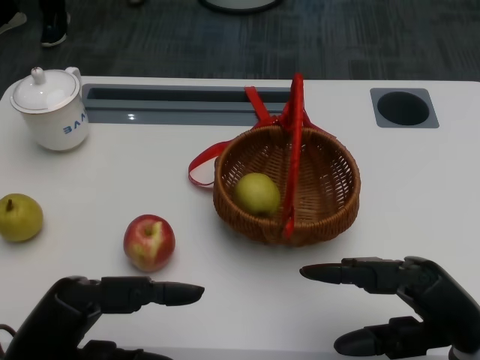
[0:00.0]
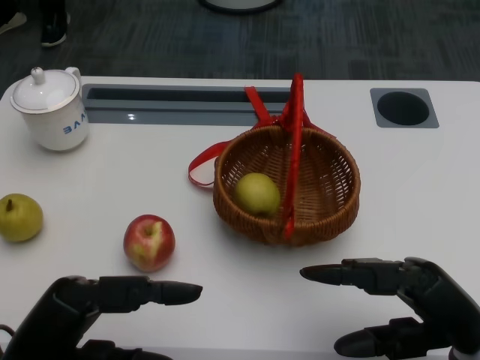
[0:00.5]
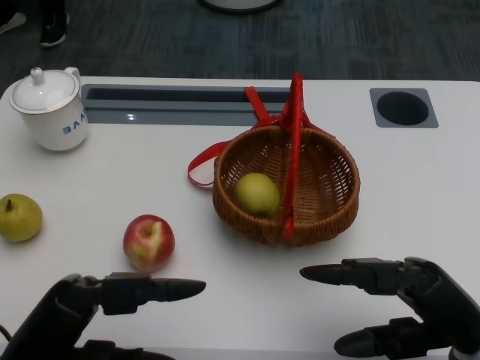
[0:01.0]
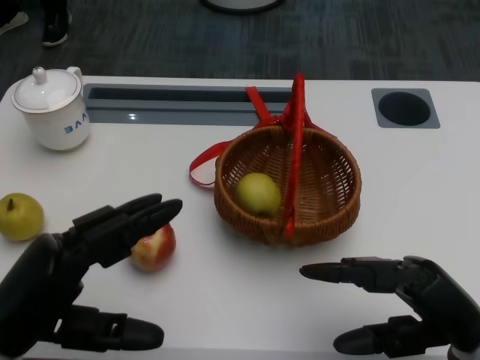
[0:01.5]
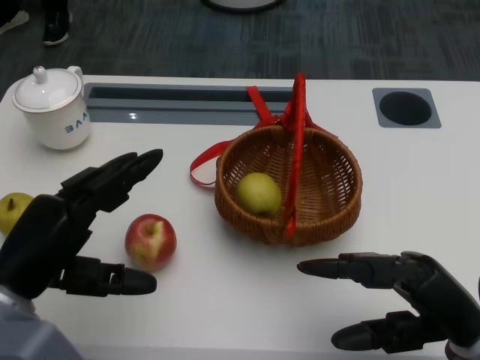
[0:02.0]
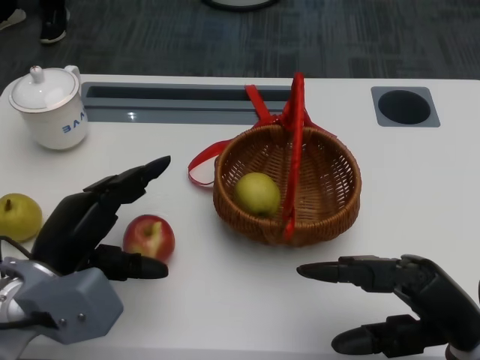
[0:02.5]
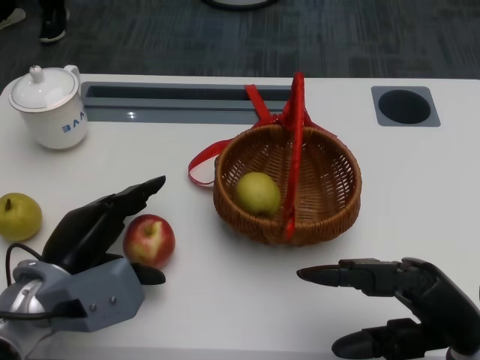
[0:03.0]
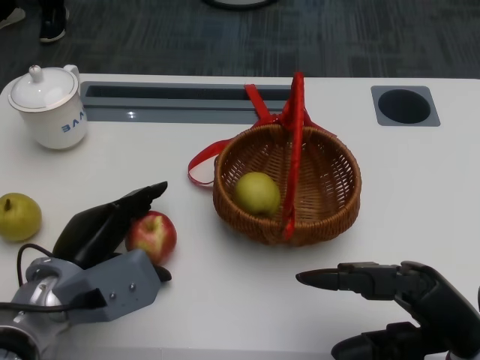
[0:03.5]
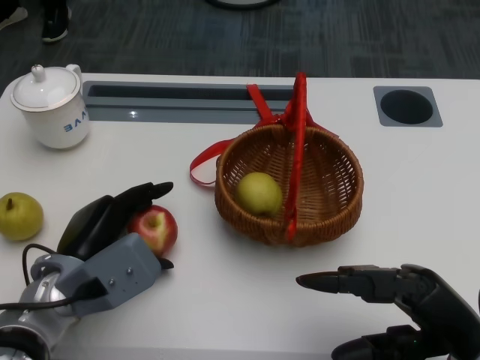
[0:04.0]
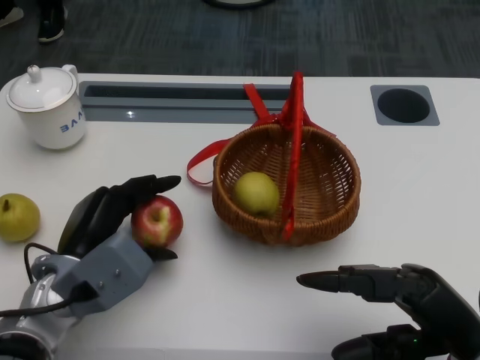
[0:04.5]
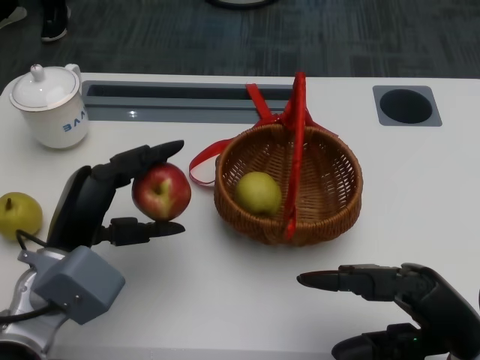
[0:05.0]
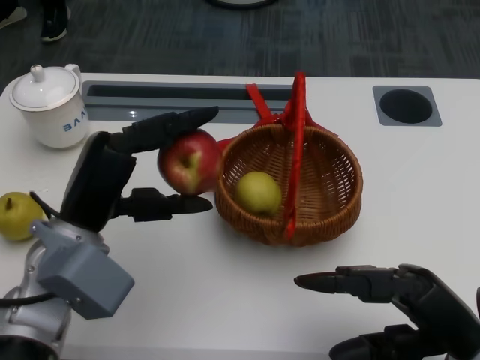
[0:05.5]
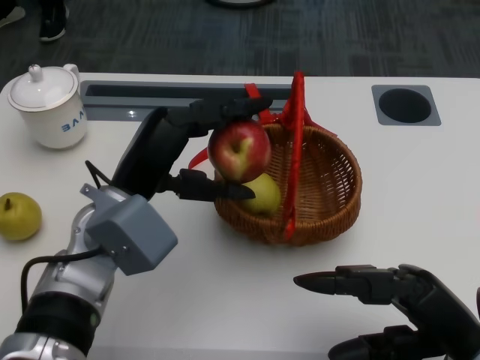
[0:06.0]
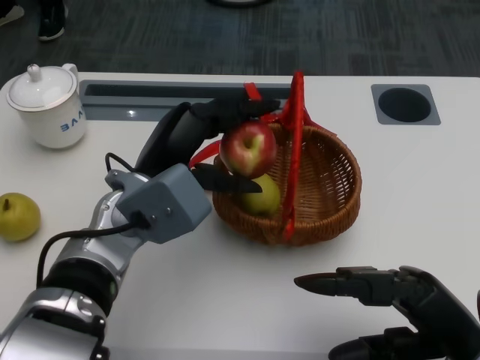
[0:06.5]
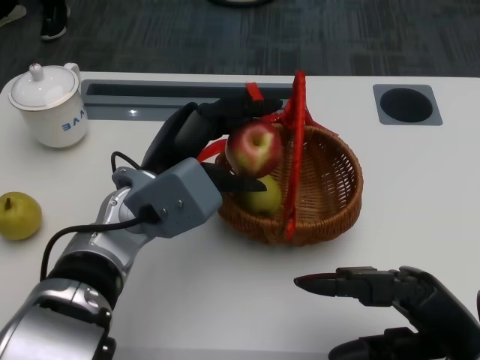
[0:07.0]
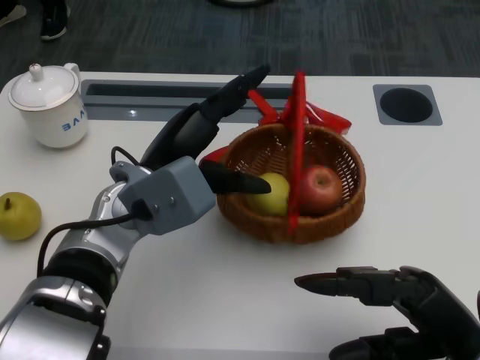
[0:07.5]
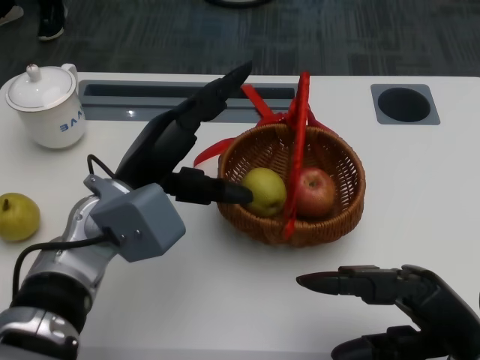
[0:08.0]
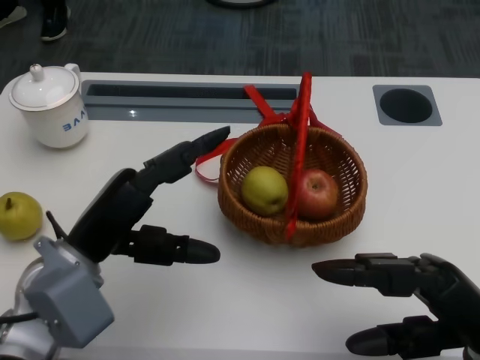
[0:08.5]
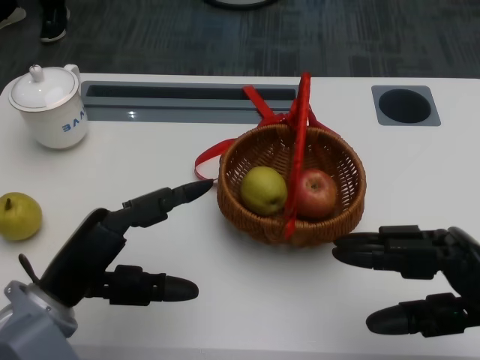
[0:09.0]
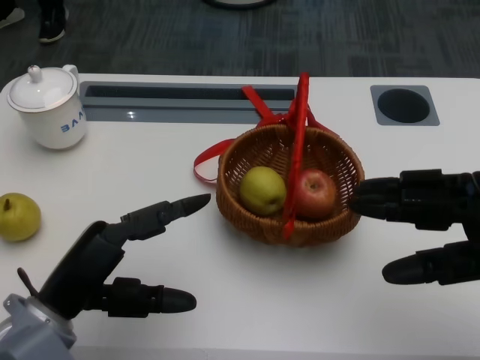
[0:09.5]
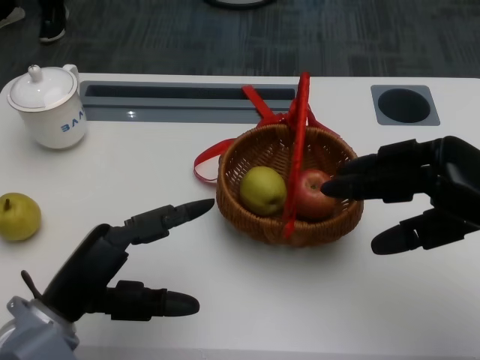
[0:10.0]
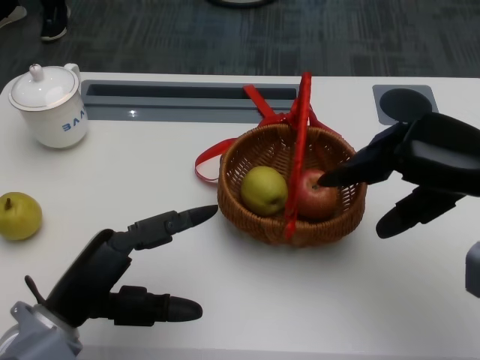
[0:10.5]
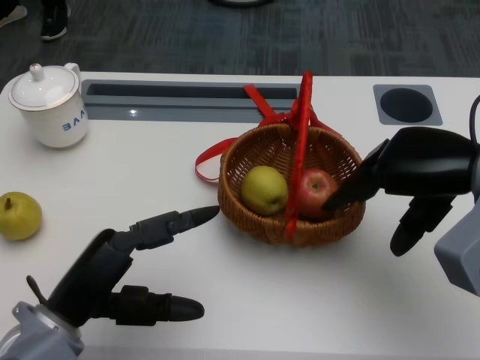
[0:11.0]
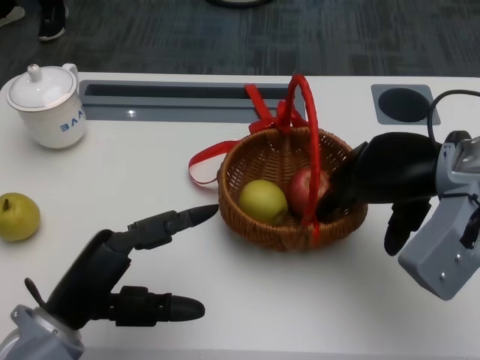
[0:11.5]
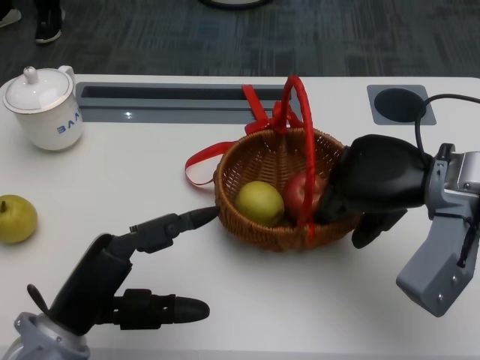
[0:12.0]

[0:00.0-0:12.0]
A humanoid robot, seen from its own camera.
Step, 0:01.0 to 0:03.0: Grasp the apple with the left gripper.
Step, 0:03.5 to 0:06.0: Place the apple into the basket with the left gripper.
Step, 0:06.5 to 0:09.5: Grasp the basket with the right gripper.
0:02.0 to 0:04.0: The left hand travels downward, forward and to the right by approximately 10 cm.
0:04.0 to 0:06.0: The left hand heads upward, covering roughly 10 cm.
0:06.0 to 0:08.0: There are only small adjustments of the hands.
0:08.0 to 0:10.0: The left hand goes approximately 10 cm backward and to the left, while the right hand heads upward and forward, covering roughly 10 cm.
0:10.0 to 0:12.0: The right hand travels to the left and forward by approximately 10 cm.

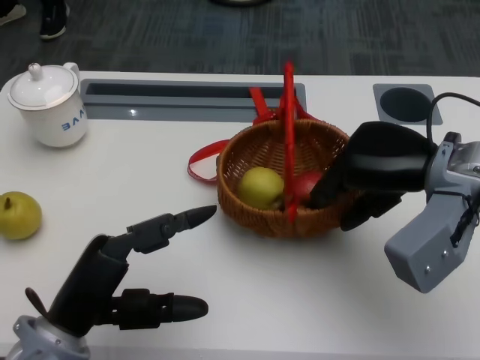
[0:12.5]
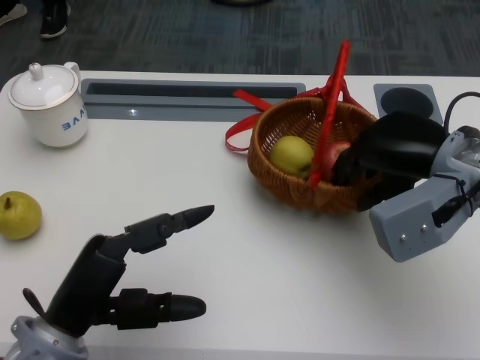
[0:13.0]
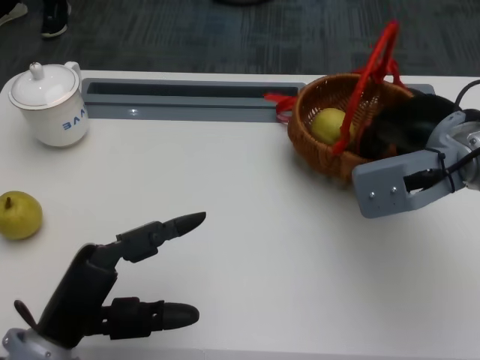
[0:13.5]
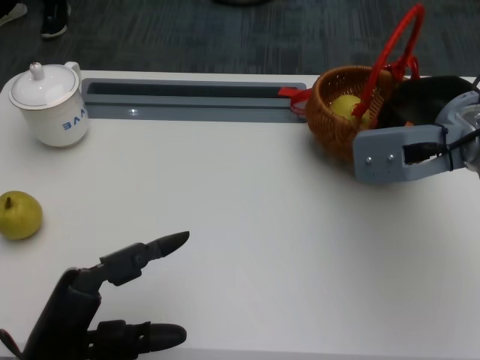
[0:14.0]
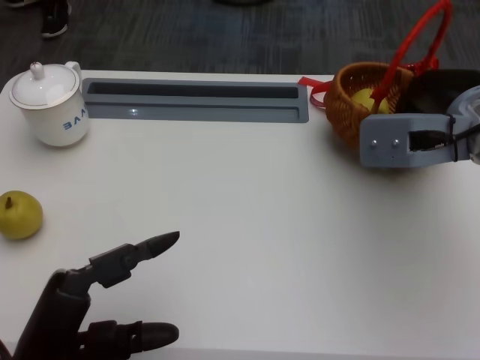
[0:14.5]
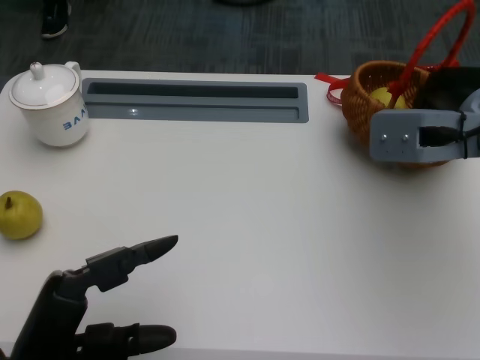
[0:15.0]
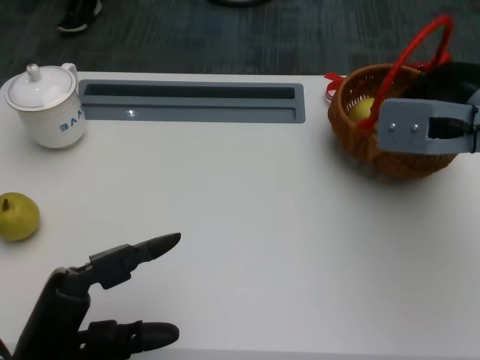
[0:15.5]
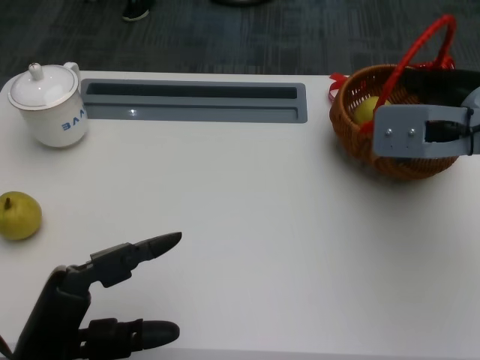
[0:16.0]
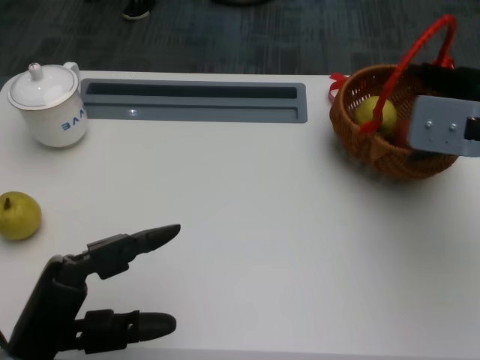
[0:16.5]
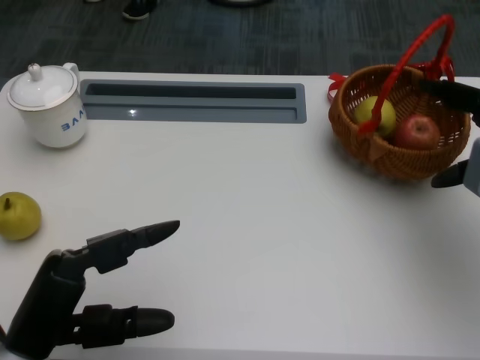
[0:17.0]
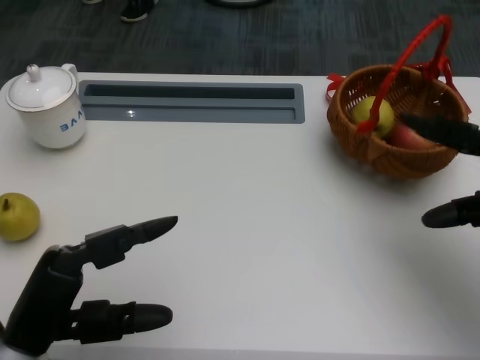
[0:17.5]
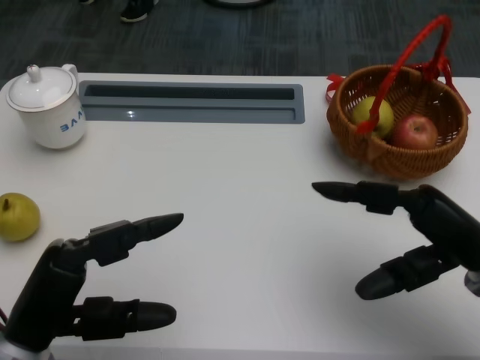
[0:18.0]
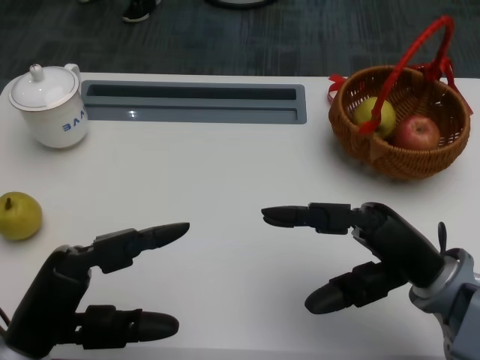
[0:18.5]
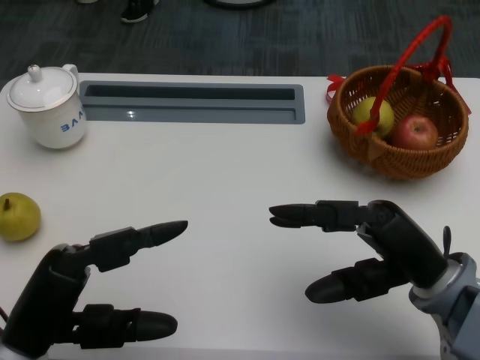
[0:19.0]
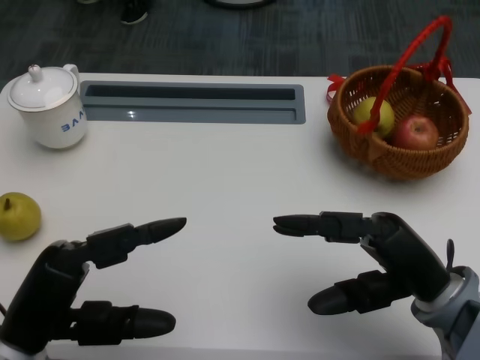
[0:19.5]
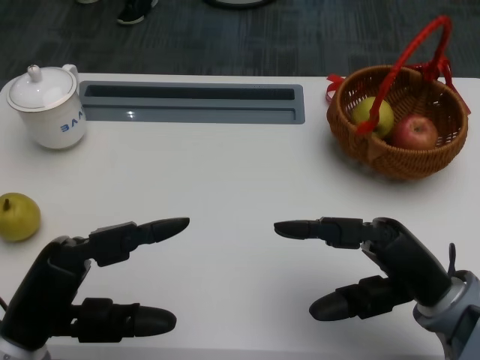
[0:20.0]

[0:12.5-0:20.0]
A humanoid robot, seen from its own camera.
0:14.5 to 0:16.5: The hands make only small movements.
0:16.5 to 0:18.0: The right hand travels backward and downward by some 15 cm.
0:18.0 to 0:20.0: The right hand shifts by approximately 5 cm.

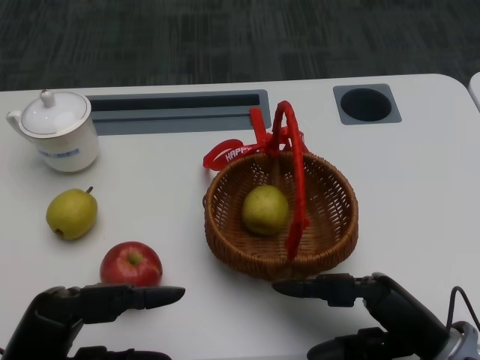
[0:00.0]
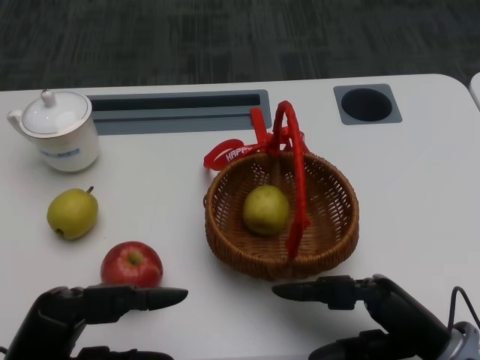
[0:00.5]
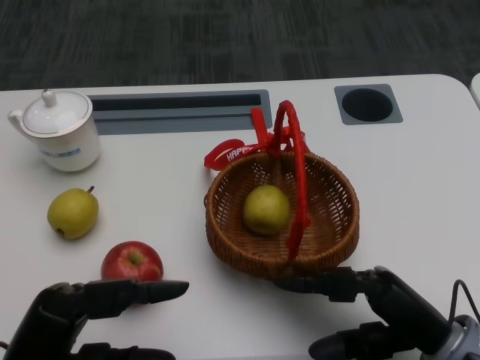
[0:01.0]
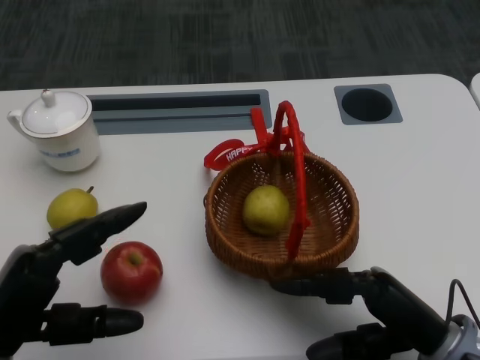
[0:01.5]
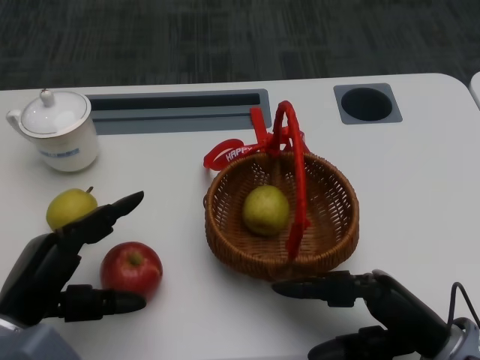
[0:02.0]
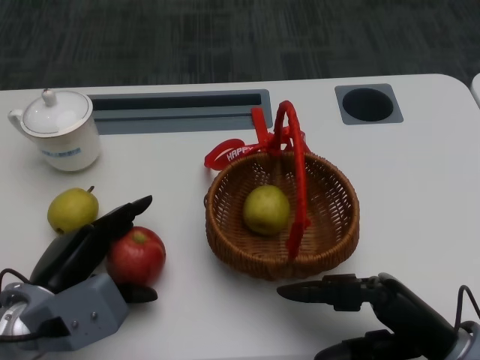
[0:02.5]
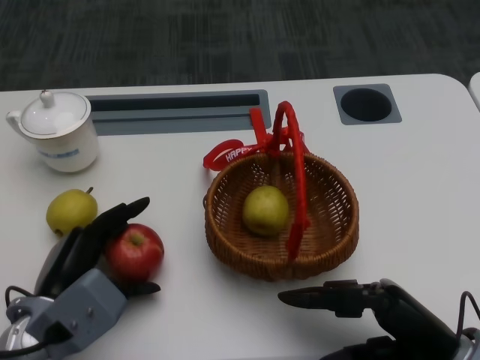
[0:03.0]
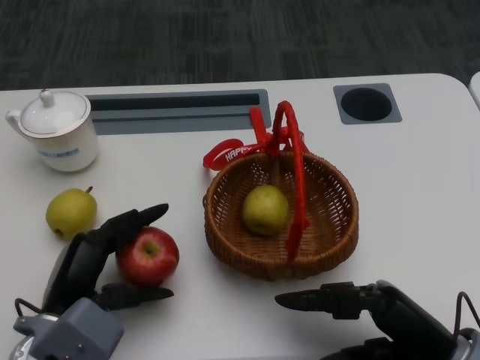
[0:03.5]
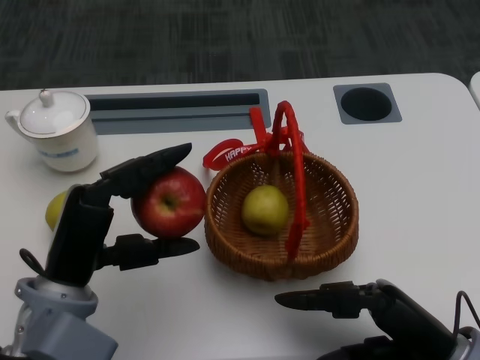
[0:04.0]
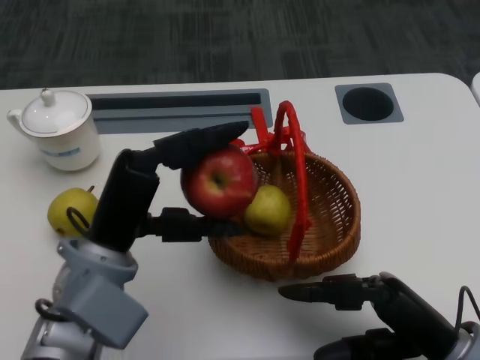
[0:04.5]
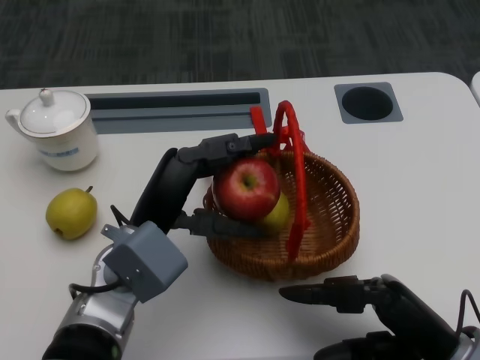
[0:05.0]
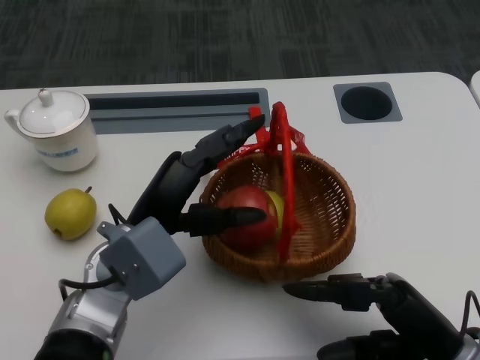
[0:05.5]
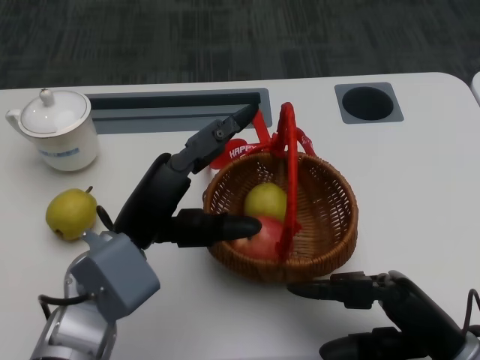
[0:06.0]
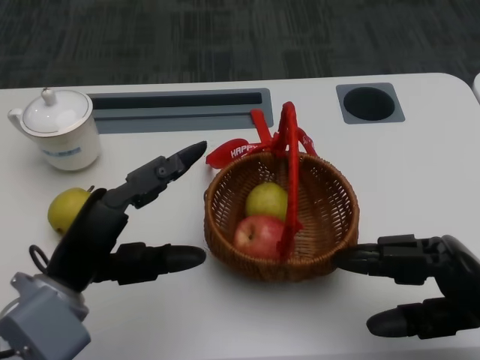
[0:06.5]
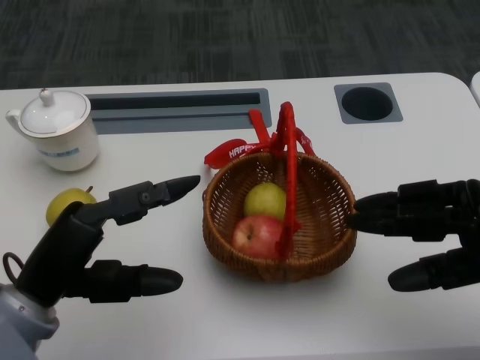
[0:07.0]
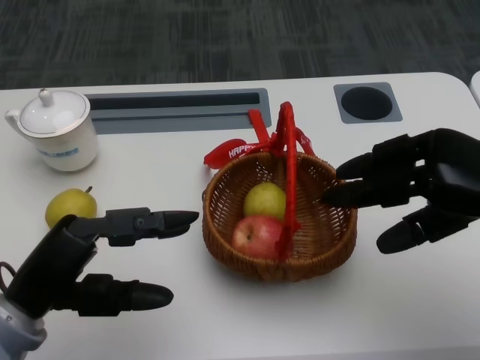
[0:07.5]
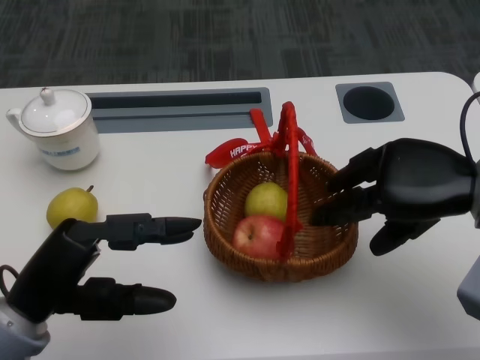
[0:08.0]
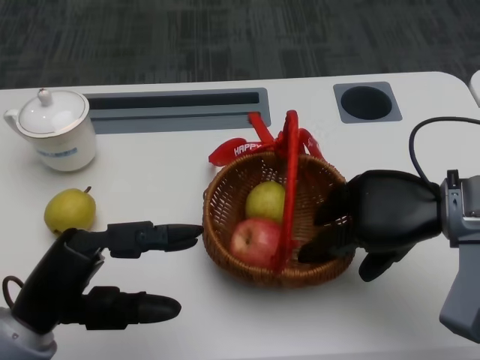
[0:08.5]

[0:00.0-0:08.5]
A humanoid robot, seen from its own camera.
Step, 0:01.0 to 0:02.0: Grasp the apple with the left gripper.
Step, 0:02.5 to 0:04.0: Place the apple into the basket with the left gripper.
Step, 0:05.0 to 0:07.0: Grasp the basket with the right gripper.
0:02.0 to 0:04.0: The left hand travels to the right by about 5 cm.
0:04.0 to 0:06.5: The right hand moves roughly 5 cm.
0:06.5 to 0:08.5: The right hand travels forward and upward by some 15 cm.
